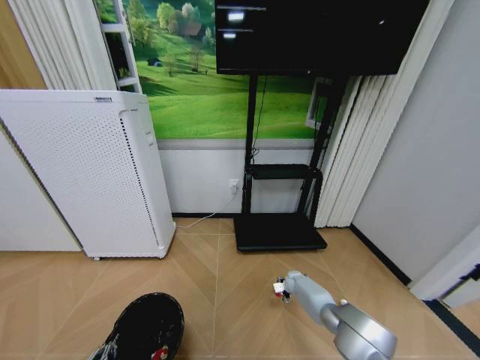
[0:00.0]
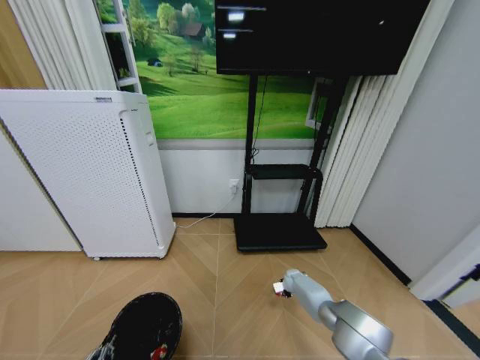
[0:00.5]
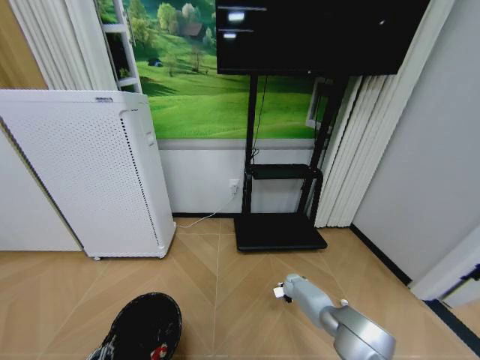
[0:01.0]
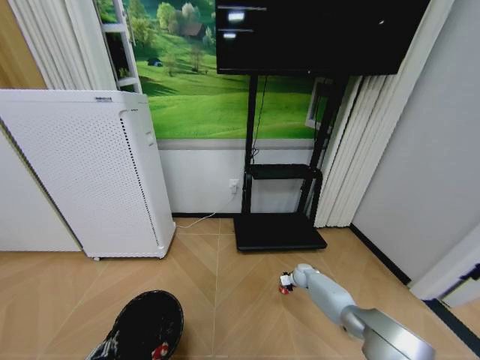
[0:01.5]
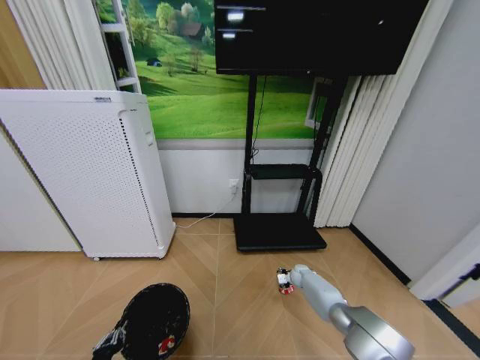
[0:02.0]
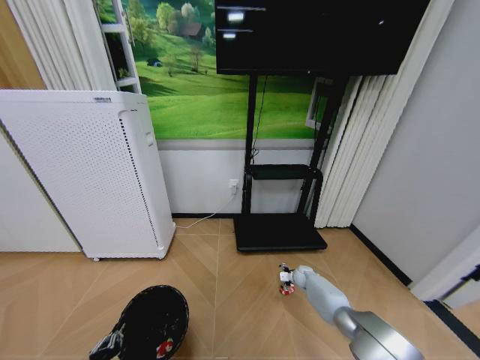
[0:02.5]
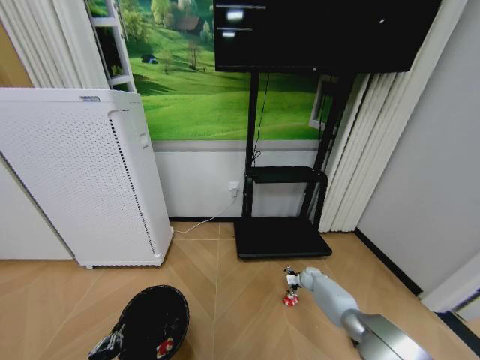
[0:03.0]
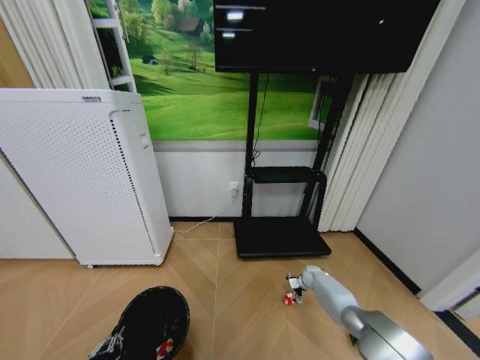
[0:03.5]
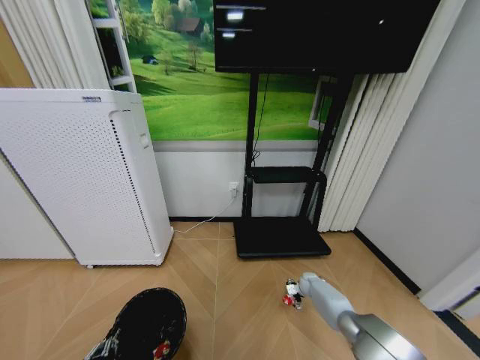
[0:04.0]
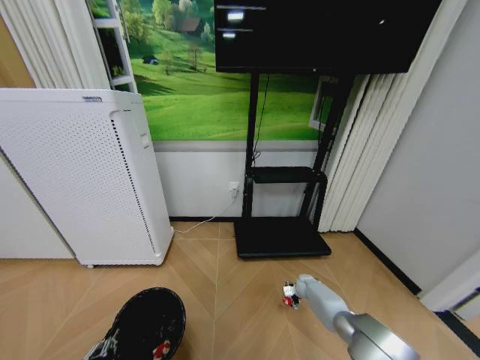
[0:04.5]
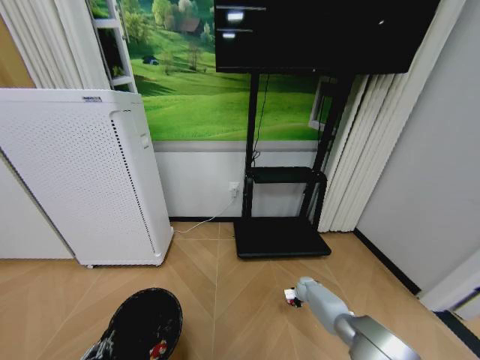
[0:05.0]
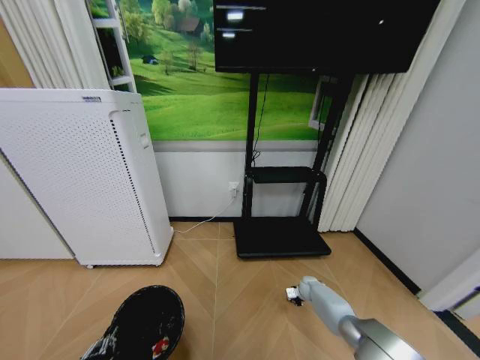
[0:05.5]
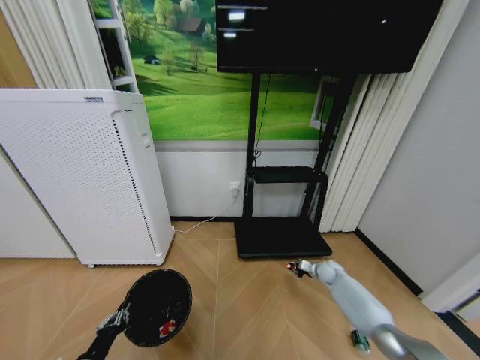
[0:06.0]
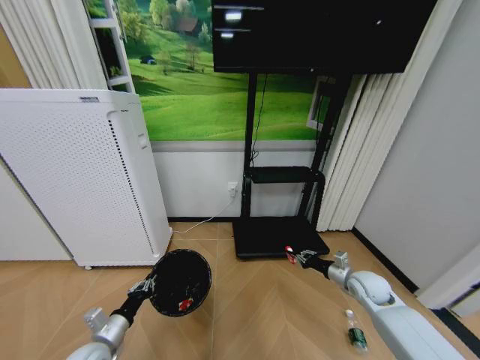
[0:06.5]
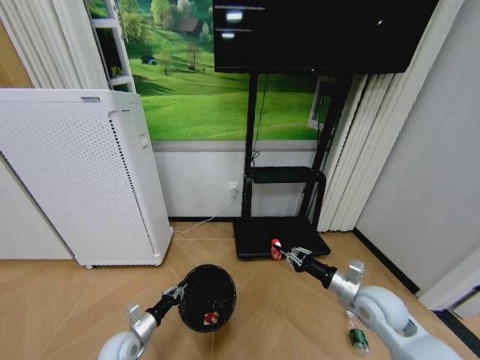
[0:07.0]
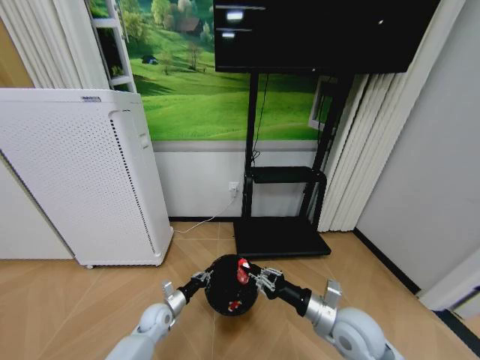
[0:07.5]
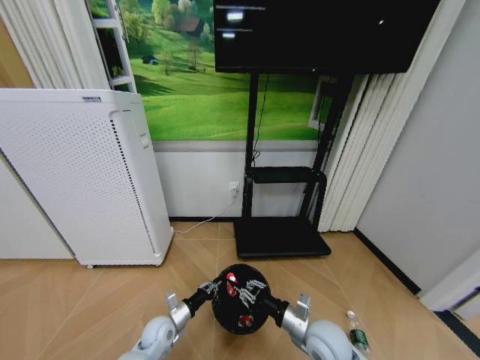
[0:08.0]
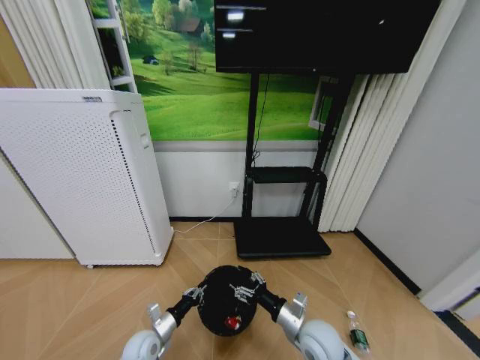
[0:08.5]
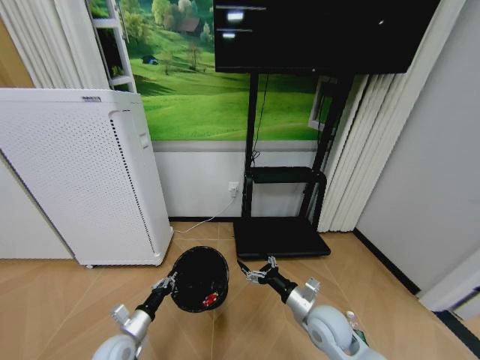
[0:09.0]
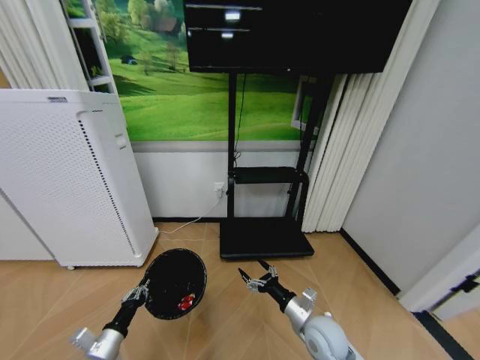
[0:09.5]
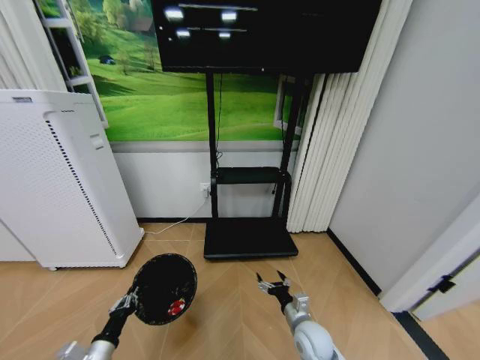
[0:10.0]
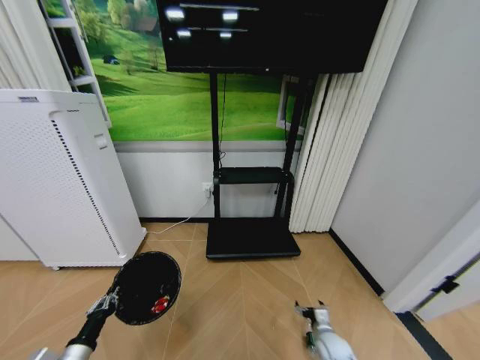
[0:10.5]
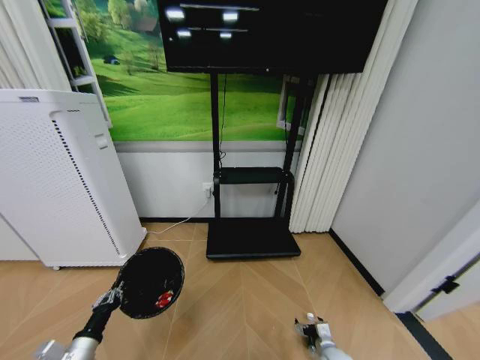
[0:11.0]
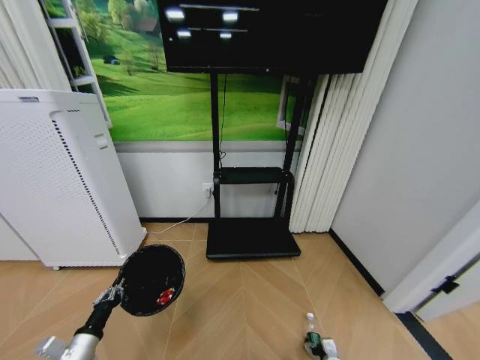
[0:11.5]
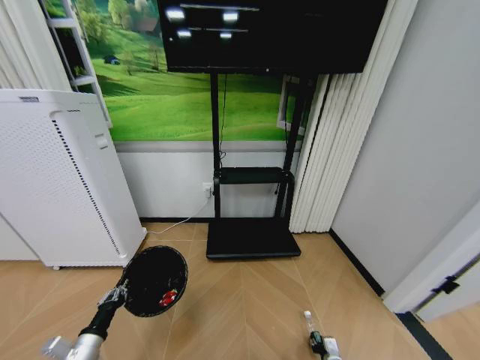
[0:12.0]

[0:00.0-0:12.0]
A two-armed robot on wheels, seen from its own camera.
Task of the whole recording: Pick up the trash bin and place the garbage on the floor into it.
0:00.0 to 0:02.0: The right gripper closes, then reopens.
0:02.0 to 0:04.0: The right gripper opens its fingers.
0:04.0 to 0:06.0: The left gripper heads forward, covering approximately 5 cm, while the right gripper heads upward, covering approximately 10 cm, and closes.
0:06.0 to 0:08.0: The right gripper moves backward, to the left and upward, roughly 35 cm. The left gripper shifts roughly 25 cm forward, to the right and downward.
0:08.0 to 0:10.0: The right gripper goes approximately 10 cm downward, and opens its fingers. Meanwhile the left gripper travels backward, to the left and upward by about 20 cm.
0:10.0 to 0:12.0: The right gripper moves downward and to the right, about 20 cm, and closes up.

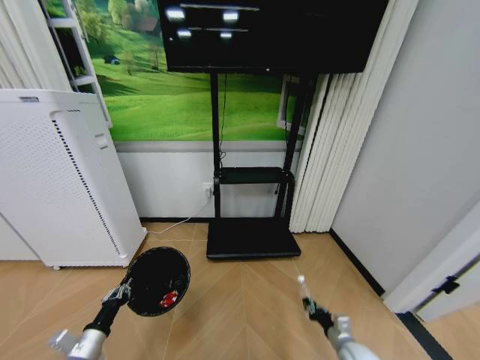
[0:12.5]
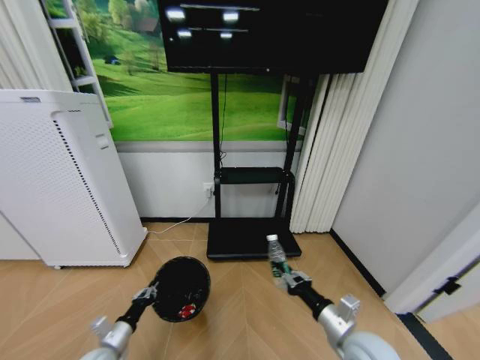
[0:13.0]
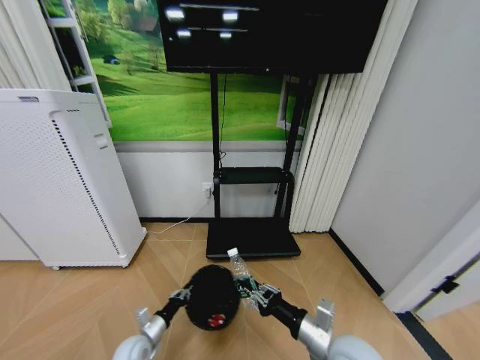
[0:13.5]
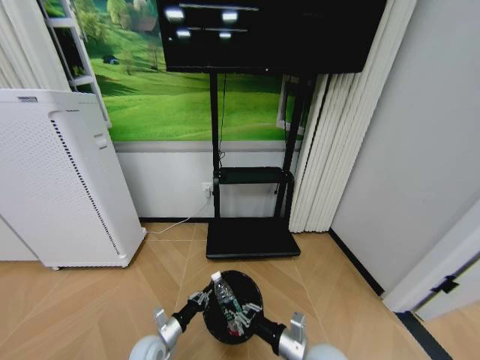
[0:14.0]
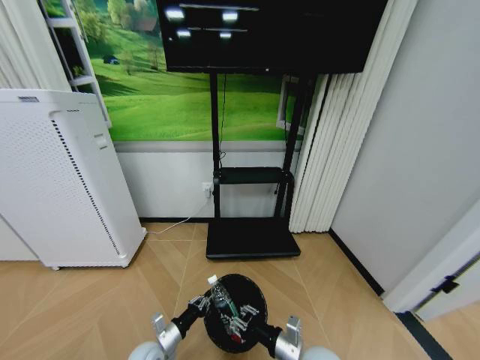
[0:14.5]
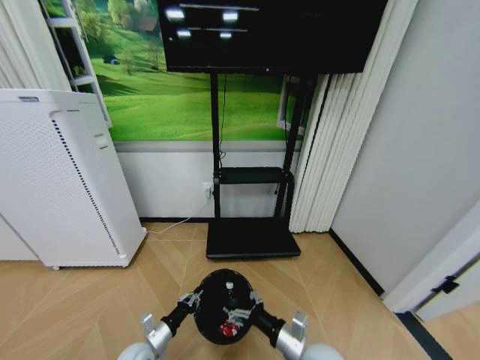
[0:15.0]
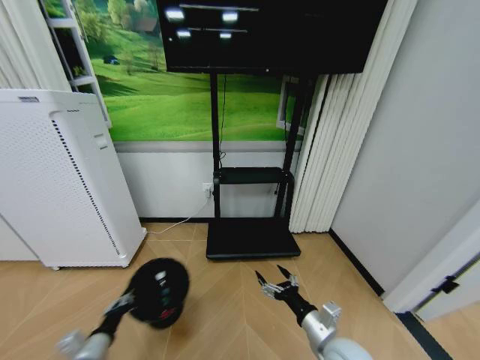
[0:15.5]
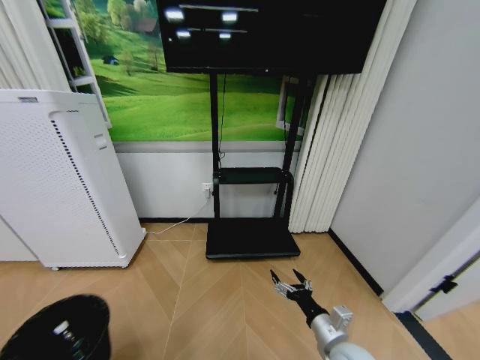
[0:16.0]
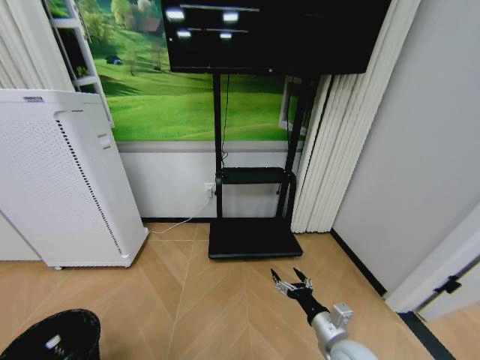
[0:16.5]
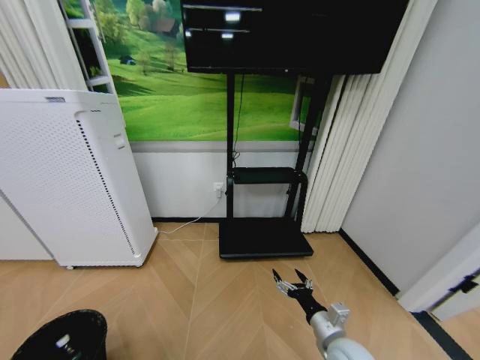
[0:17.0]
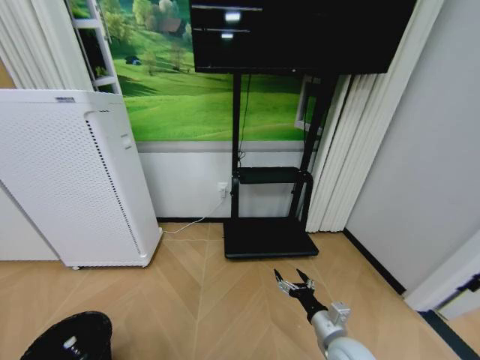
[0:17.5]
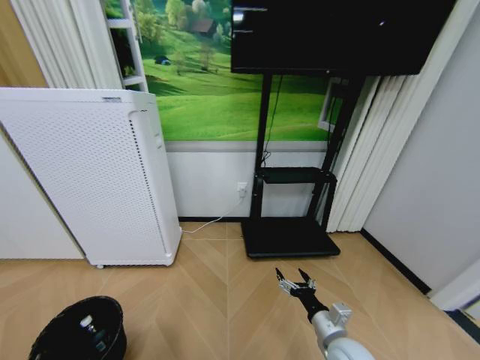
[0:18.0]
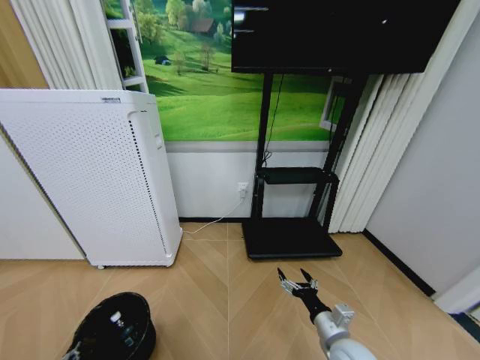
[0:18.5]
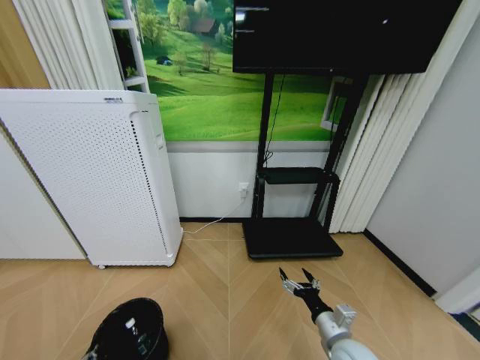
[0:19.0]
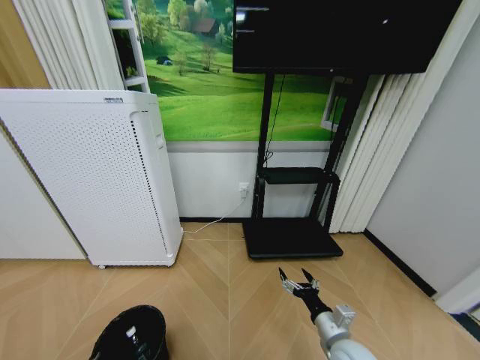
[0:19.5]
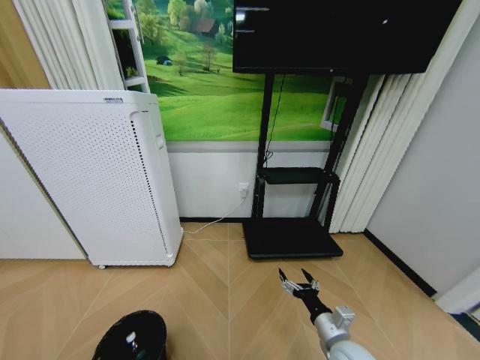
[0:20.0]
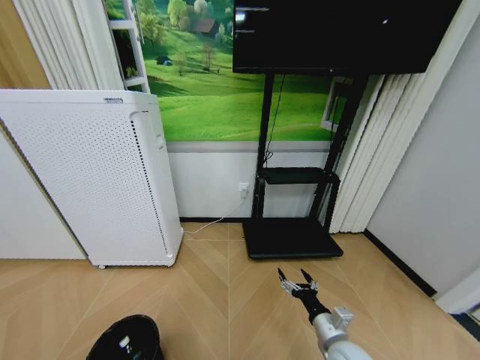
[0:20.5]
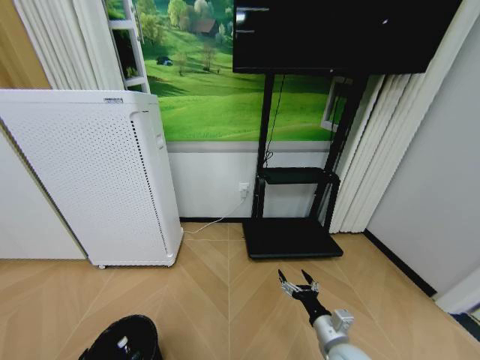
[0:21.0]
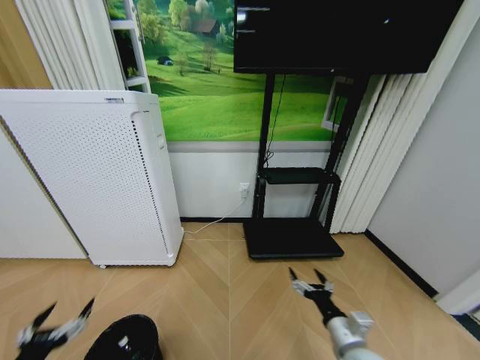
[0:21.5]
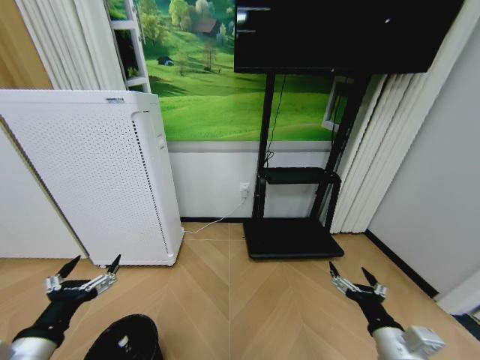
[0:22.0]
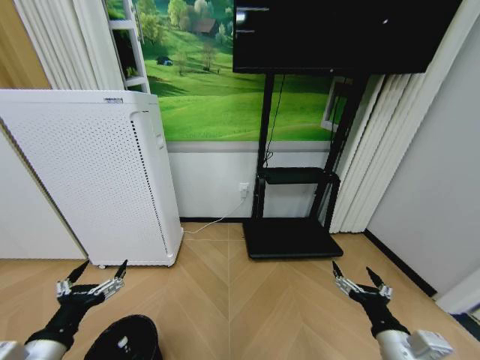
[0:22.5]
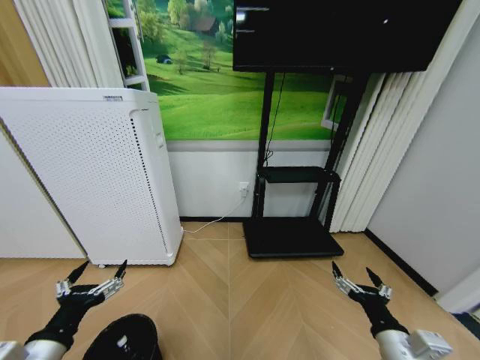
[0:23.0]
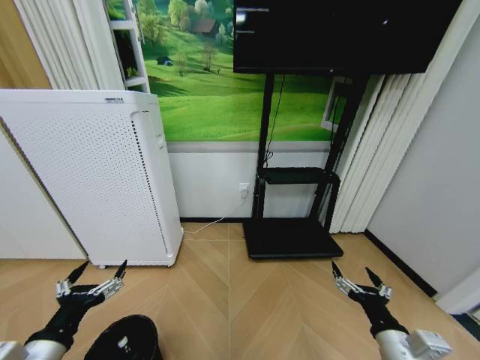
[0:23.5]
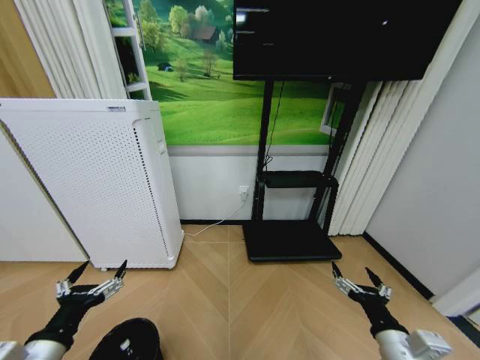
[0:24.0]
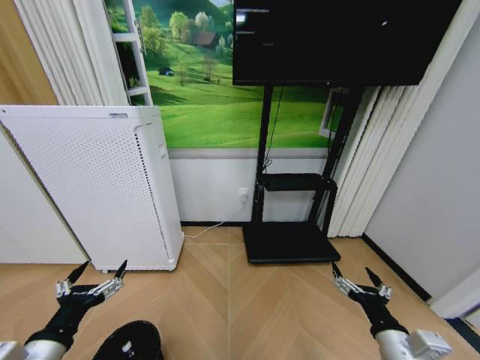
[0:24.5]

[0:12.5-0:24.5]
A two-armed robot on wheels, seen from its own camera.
Task of the whole recording: Pick up the trash bin and place the garbage on the floor into it.
0:12.5 to 0:14.5: The right gripper travels to the left and upward by approximately 25 cm. Meanwhile the left gripper moves to the right, downward and forward, approximately 15 cm.
0:14.5 to 0:16.5: The left gripper heads backward, to the left and upward, covering some 35 cm. Meanwhile the right gripper travels to the right by about 5 cm, and opens.
0:16.5 to 0:18.5: The left gripper heads downward, covering approximately 5 cm.
0:18.5 to 0:20.5: There are only small adjustments of the grippers.
0:20.5 to 0:22.5: The left gripper goes approximately 25 cm upward, and opens up. Meanwhile the right gripper travels upward, backward and to the right by approximately 15 cm.
0:22.5 to 0:24.5: Neither gripper changes place.

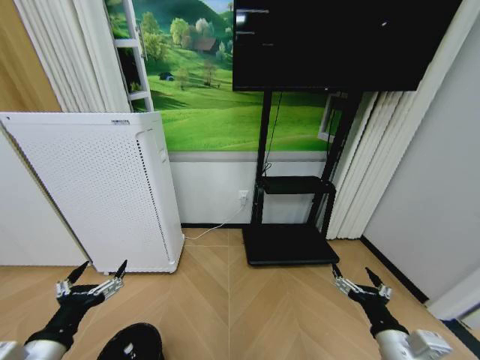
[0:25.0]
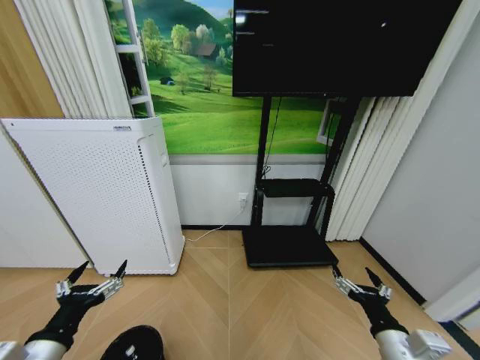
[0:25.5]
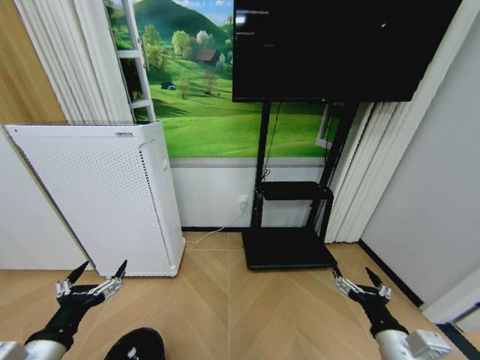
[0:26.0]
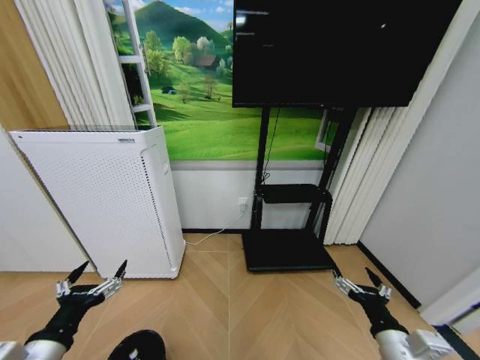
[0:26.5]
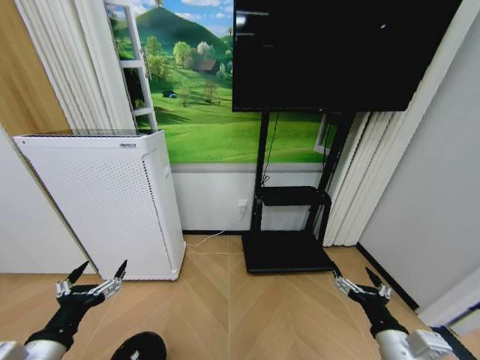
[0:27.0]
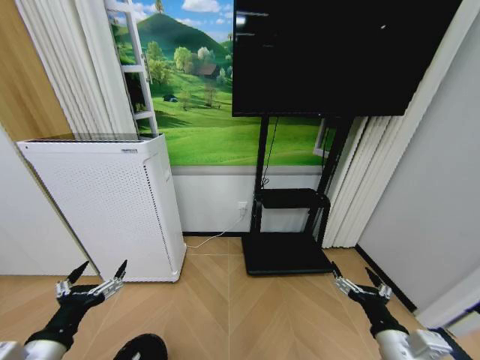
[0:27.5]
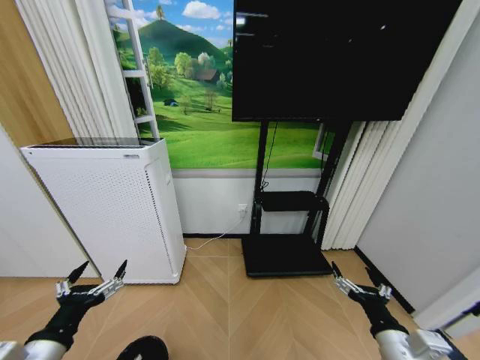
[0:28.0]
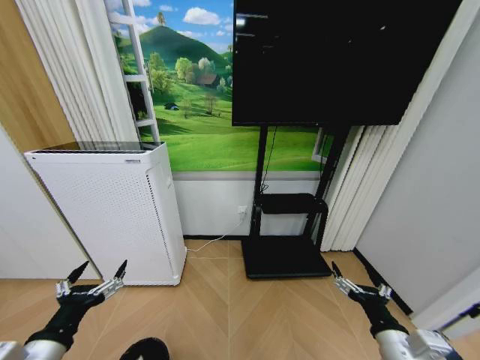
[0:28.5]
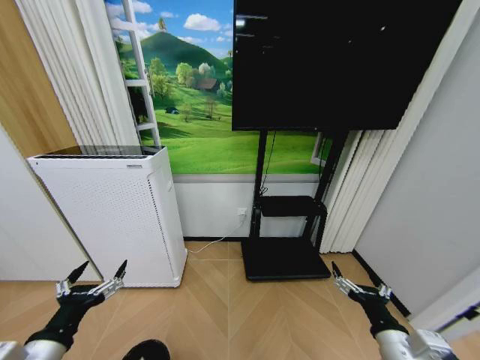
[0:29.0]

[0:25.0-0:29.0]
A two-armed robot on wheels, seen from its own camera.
Task of the whole recording: Pick up the trash bin and place the garbage on the floor into it.
0:25.0 to 0:29.0: Both grippers stay about where they are.
